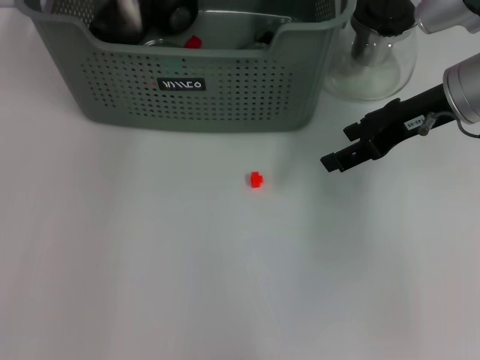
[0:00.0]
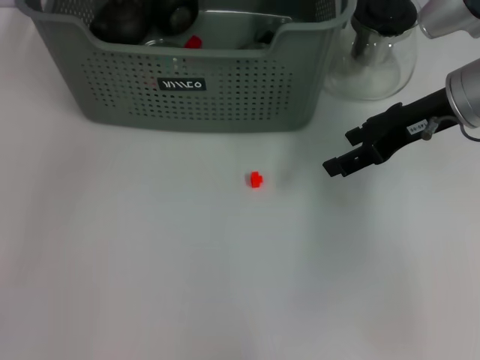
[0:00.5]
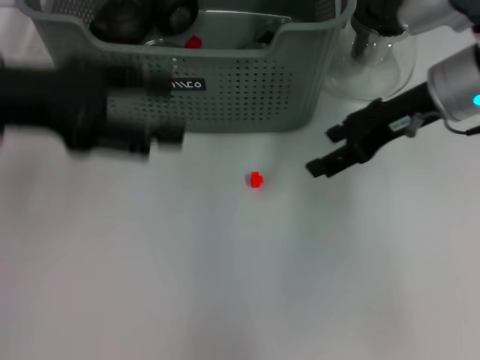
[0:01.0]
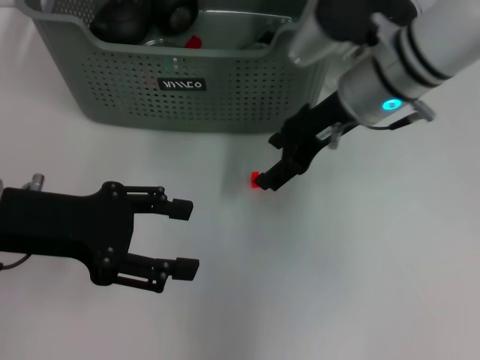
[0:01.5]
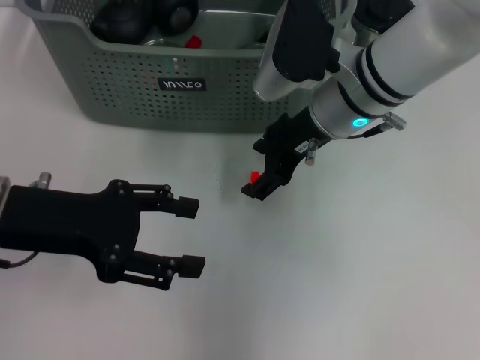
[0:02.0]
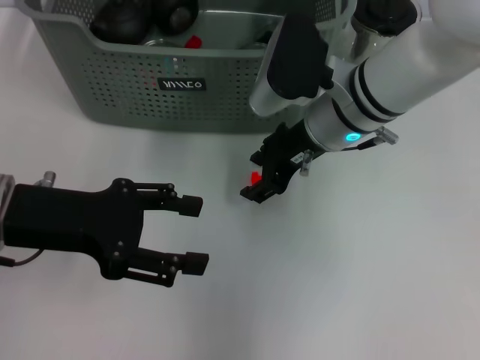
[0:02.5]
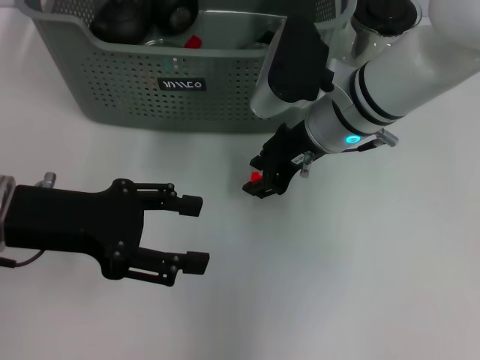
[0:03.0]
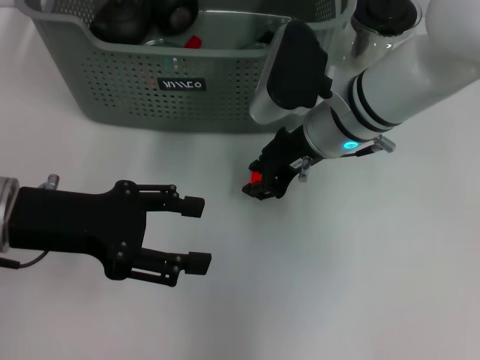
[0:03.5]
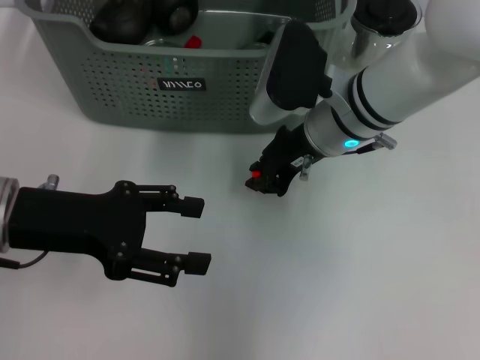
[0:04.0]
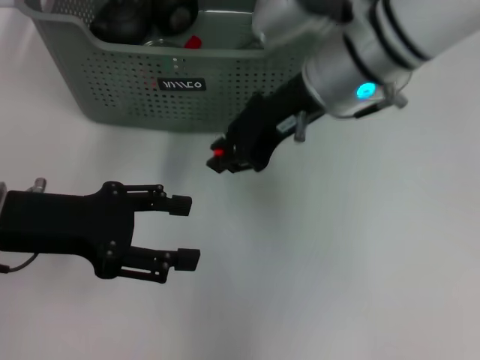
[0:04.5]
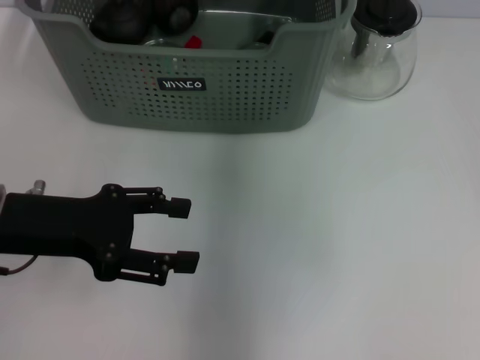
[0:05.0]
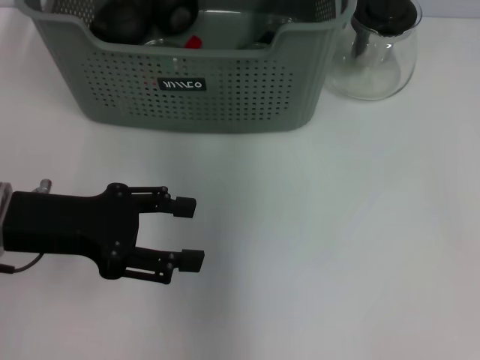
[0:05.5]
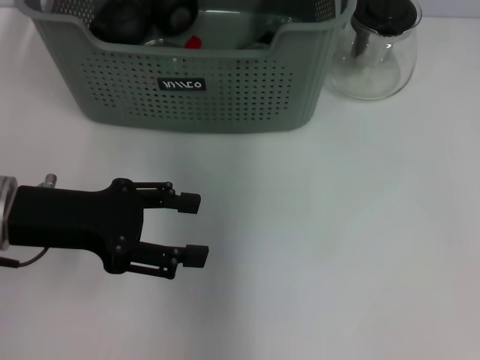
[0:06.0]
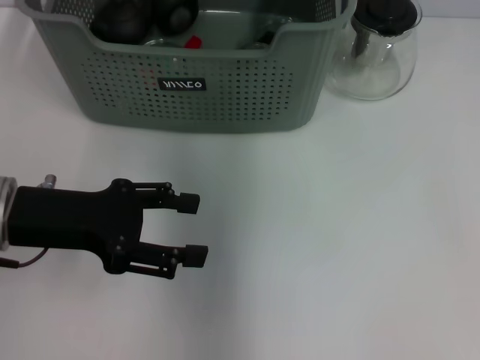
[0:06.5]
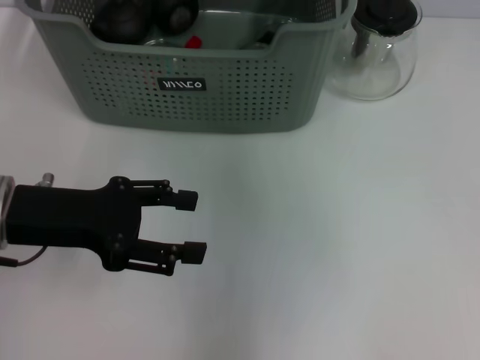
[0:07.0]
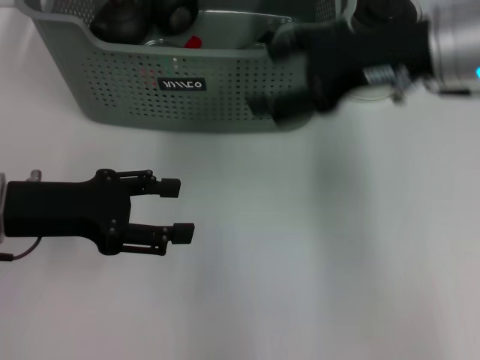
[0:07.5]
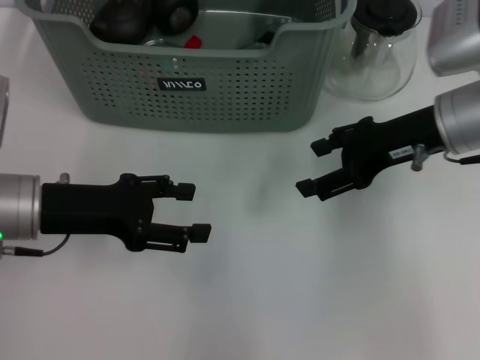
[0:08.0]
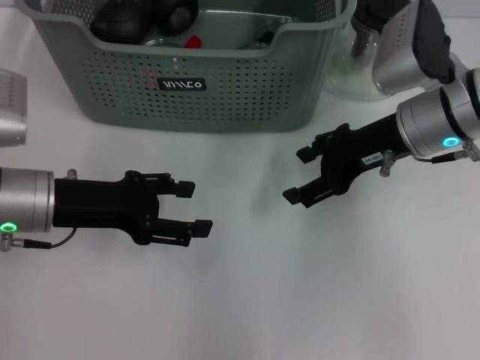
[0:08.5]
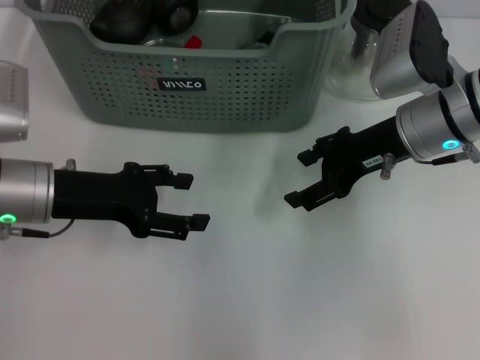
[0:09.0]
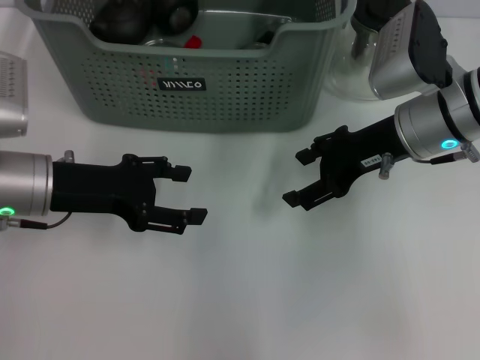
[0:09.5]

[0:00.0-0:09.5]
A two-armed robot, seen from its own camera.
Task of the whole recording: pick up the teacup on the table and place it into the storage bin, pick up the block on the table and place it into the storage bin.
Step, 0:00.5 to 0:03.5: Grasp the orange block with right gripper.
Step, 0:04.0 to 0:06.0: Place the orange block in the storage box with right gripper.
0:00.0 to 0:02.0: The right gripper goes some 10 cm to the left, while the left gripper travels backward and downward by some 25 cm, and opens.
0:02.0 to 0:04.0: The right gripper closes up.
0:04.0 to 0:05.5: The right gripper travels upward, to the left and forward by approximately 20 cm.
0:05.5 to 0:07.5: The right gripper heads to the right and backward, covering about 20 cm, and opens up.
0:07.5 to 0:09.5: The right gripper moves downward, roughly 10 cm; the left gripper ends up roughly 5 cm from where it was.
